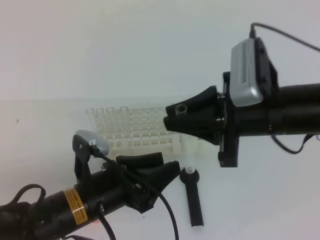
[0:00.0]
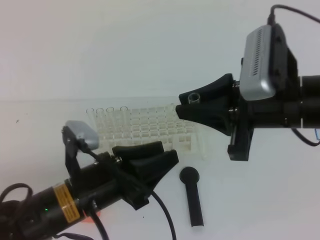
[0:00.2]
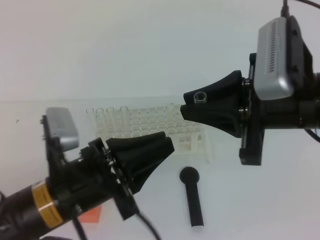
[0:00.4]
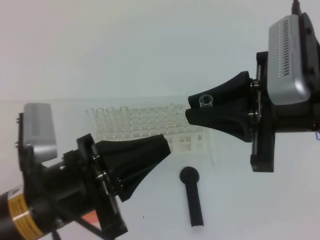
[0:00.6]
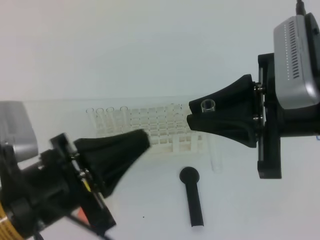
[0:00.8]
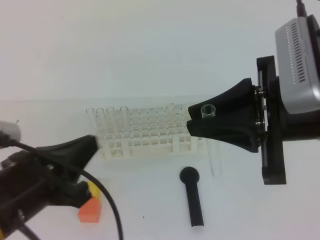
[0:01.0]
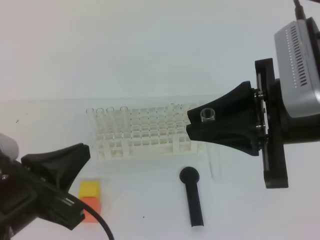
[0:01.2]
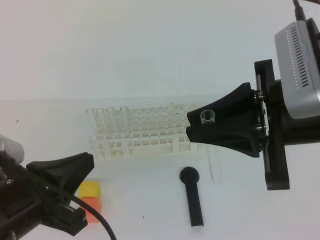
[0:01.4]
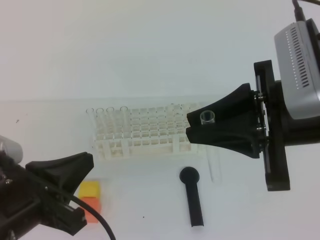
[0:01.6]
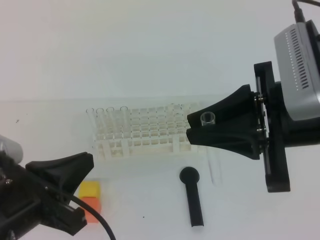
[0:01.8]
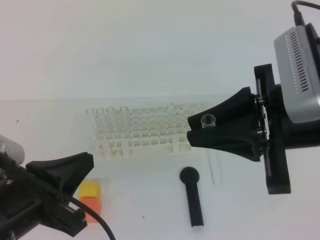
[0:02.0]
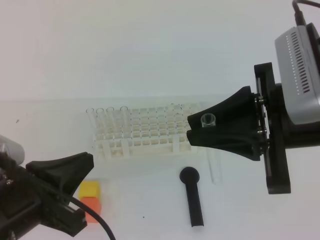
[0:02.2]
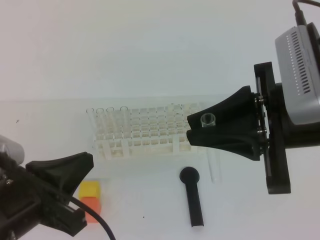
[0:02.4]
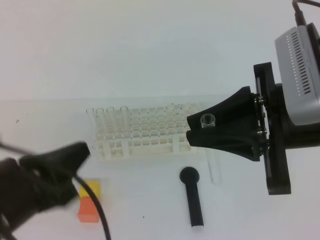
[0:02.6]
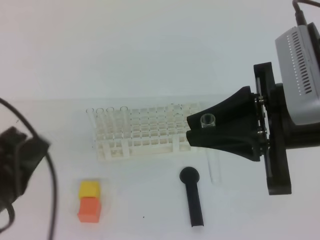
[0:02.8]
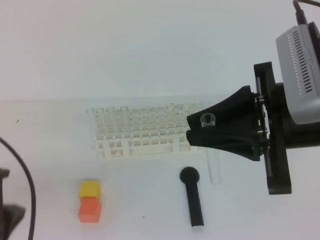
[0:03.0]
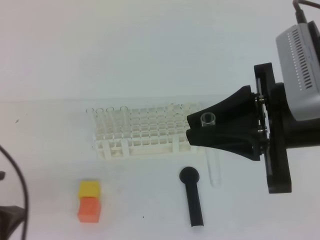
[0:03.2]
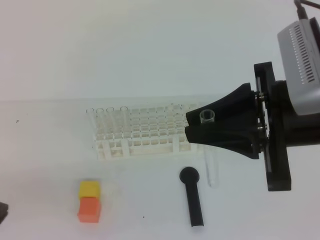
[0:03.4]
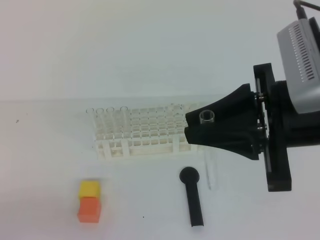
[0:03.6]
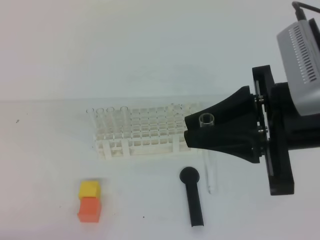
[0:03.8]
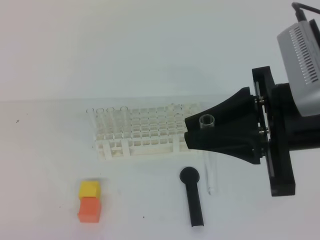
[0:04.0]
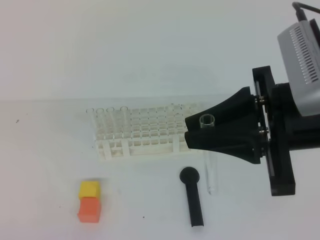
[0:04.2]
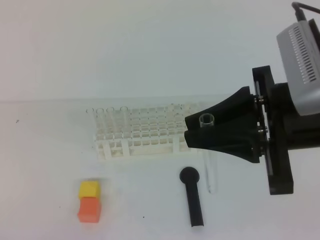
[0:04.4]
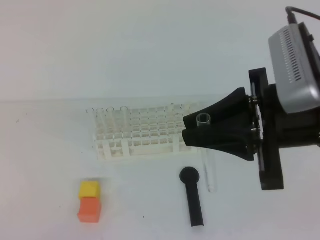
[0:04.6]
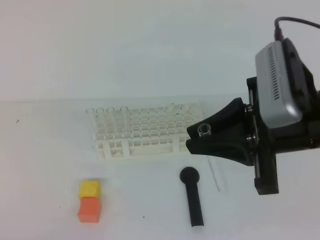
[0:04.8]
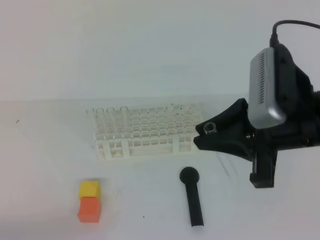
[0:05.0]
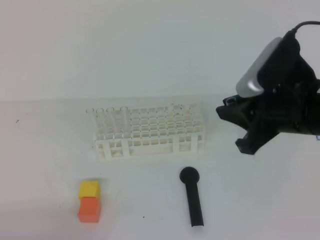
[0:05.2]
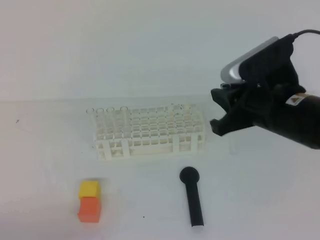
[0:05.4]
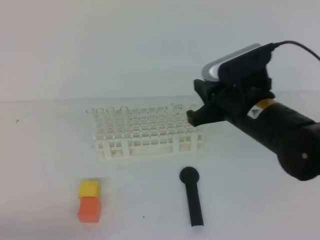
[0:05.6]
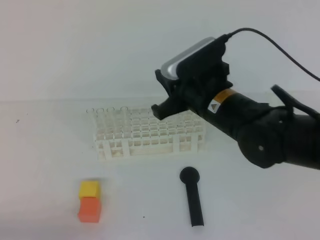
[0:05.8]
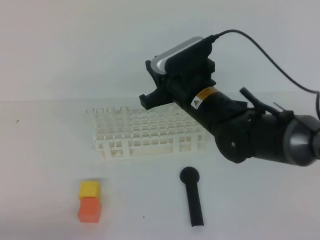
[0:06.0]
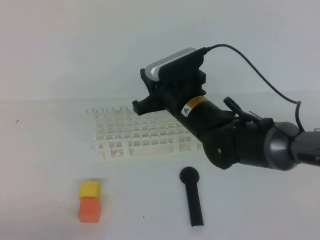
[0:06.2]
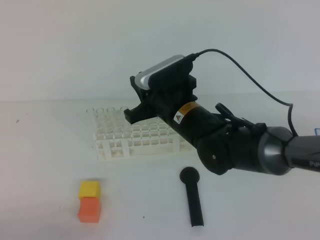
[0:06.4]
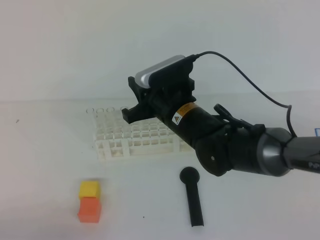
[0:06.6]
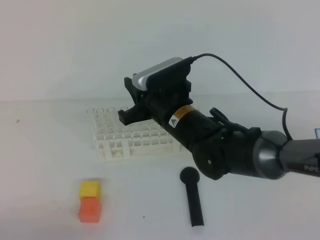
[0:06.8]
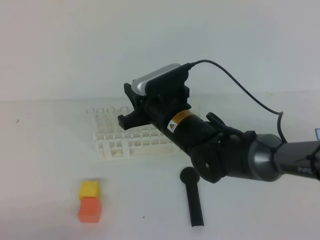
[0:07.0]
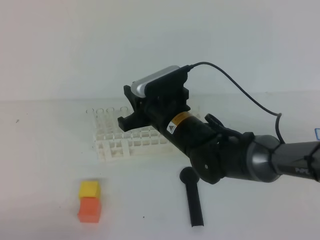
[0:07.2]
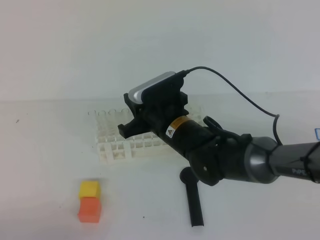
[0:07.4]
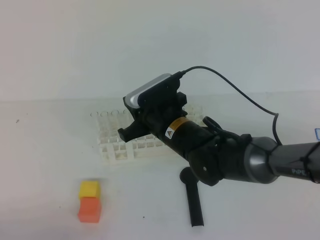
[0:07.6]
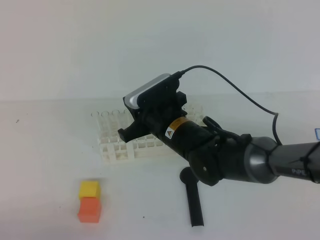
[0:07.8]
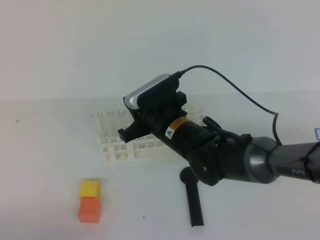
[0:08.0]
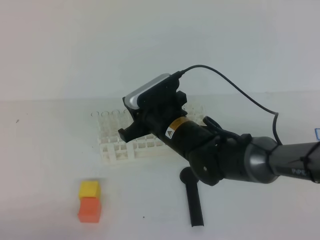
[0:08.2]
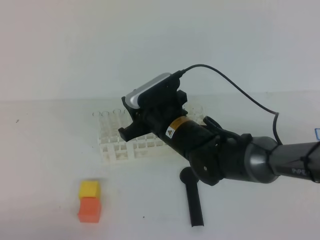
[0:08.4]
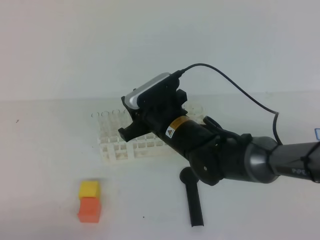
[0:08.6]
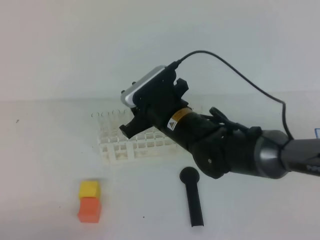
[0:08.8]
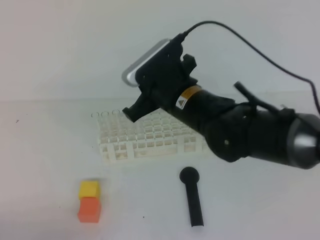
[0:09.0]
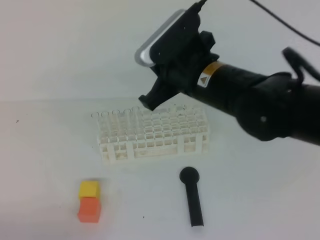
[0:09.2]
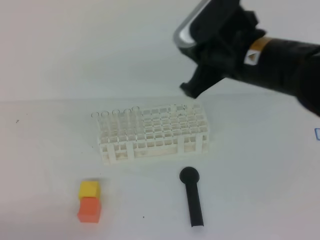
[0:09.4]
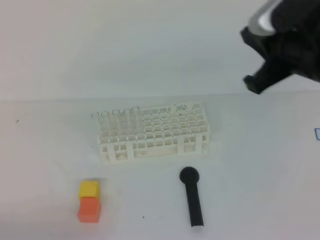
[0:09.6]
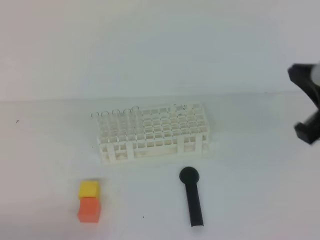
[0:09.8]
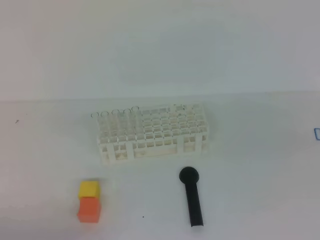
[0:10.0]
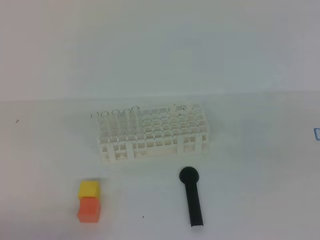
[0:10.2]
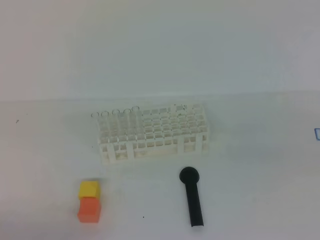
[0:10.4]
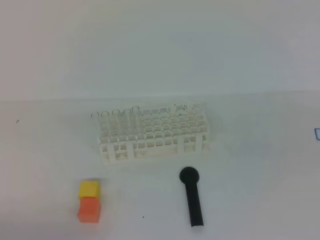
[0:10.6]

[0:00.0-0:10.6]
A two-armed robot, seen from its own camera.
0:00.0 to 0:01.6: The left gripper heads to the left, upward and backward, covering approximately 10 cm, and closes its fingers, while the right gripper is displaced upward and backward by some 10 cm.
0:03.0 to 0:04.6: The left gripper is displaced downward, backward and to the left by some 15 cm.
0:04.6 to 0:06.0: The right gripper is displaced forward, to the left and downward by approximately 20 cm.
0:06.0 to 0:07.6: The right gripper goes roughly 5 cm downward.
0:07.6 to 0:09.0: The right gripper goes some 5 cm upward.
0:09.0 to 0:10.6: The right gripper shifts about 30 cm to the right and backward.

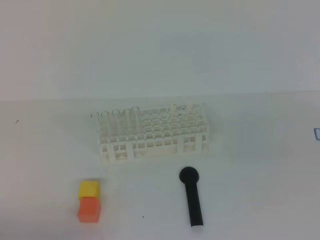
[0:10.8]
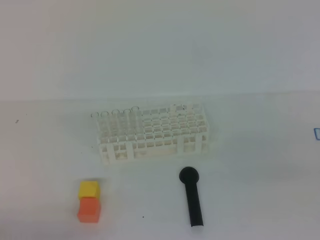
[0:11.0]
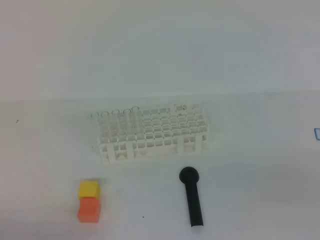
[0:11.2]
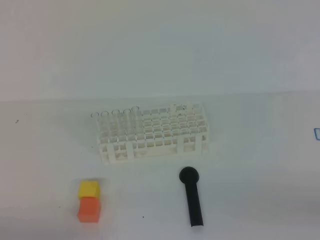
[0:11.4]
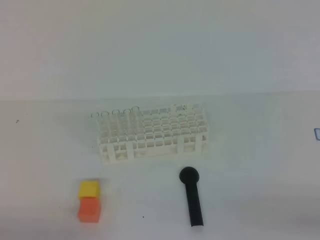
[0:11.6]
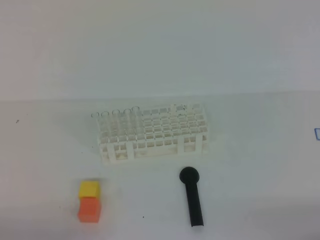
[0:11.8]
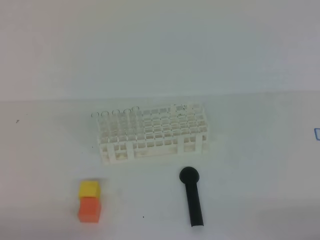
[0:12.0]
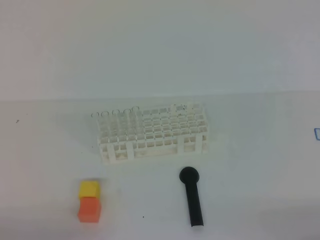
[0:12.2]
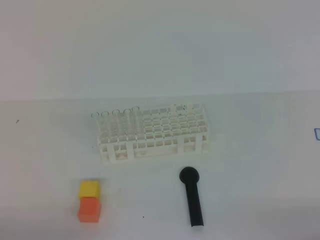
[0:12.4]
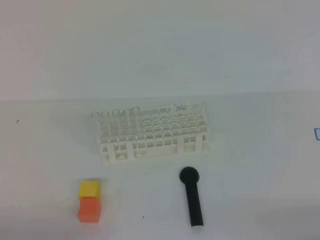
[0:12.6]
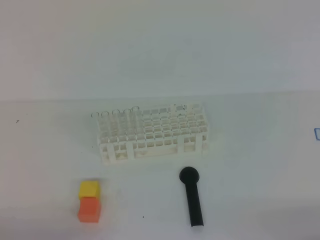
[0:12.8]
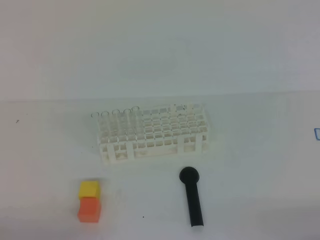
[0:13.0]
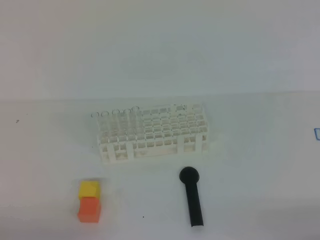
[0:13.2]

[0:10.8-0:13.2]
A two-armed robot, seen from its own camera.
0:12.0 to 0:13.2: Neither gripper changes place.

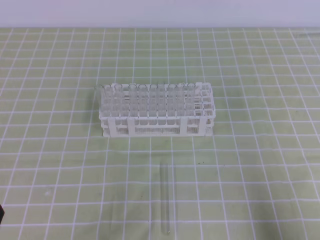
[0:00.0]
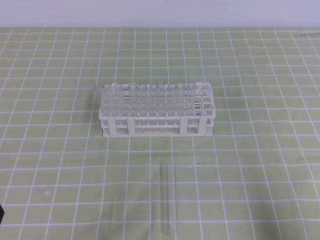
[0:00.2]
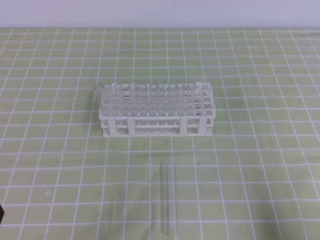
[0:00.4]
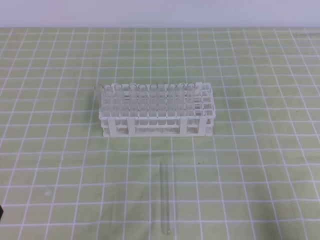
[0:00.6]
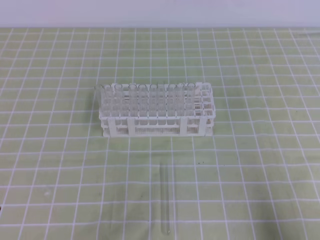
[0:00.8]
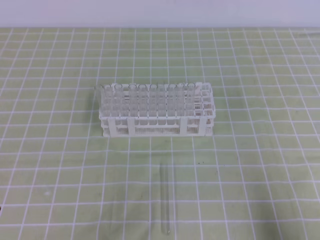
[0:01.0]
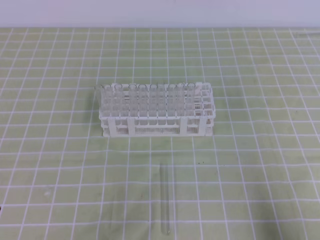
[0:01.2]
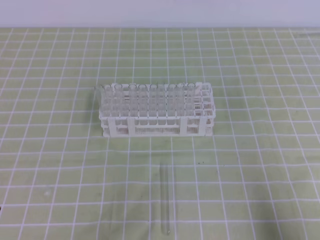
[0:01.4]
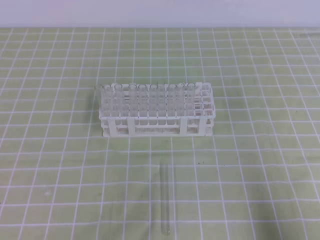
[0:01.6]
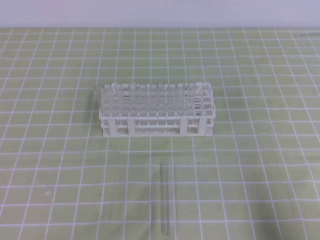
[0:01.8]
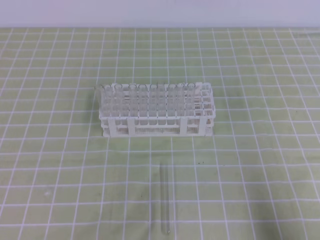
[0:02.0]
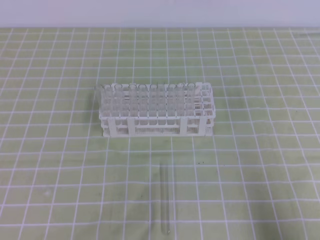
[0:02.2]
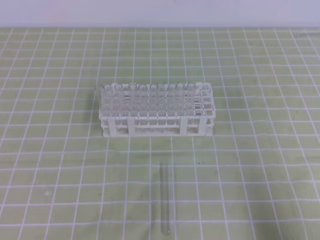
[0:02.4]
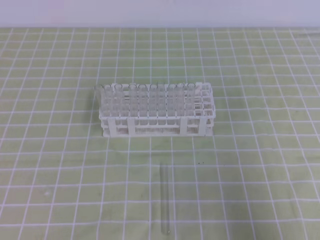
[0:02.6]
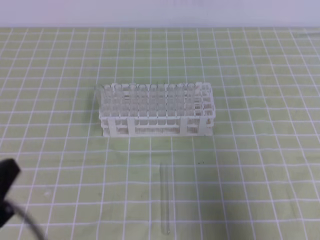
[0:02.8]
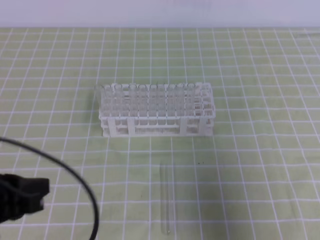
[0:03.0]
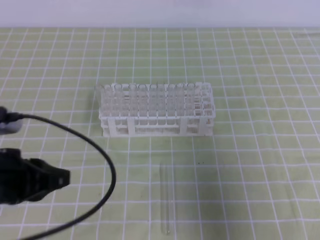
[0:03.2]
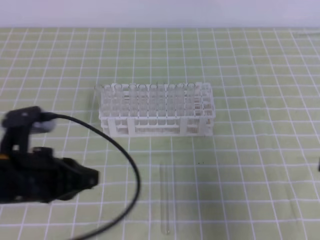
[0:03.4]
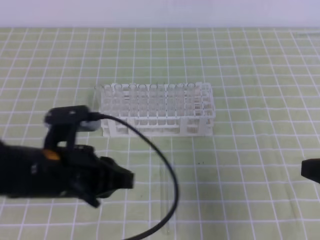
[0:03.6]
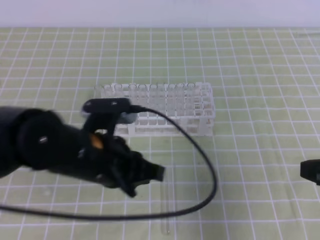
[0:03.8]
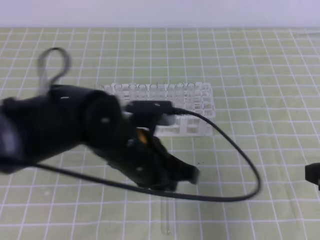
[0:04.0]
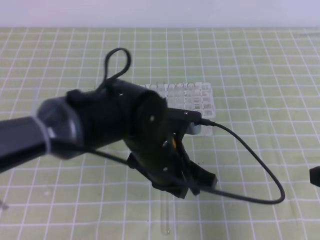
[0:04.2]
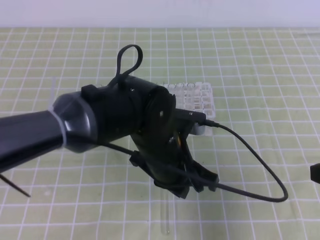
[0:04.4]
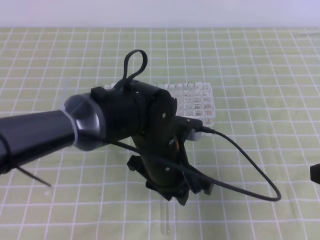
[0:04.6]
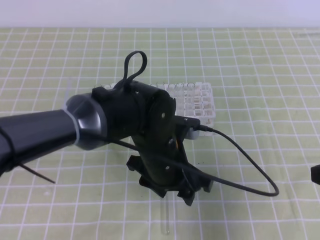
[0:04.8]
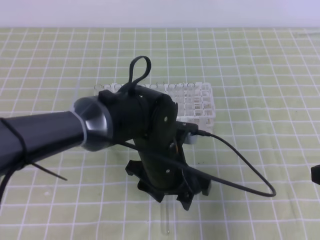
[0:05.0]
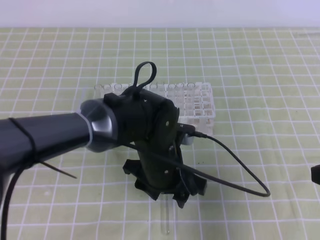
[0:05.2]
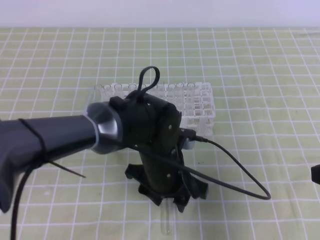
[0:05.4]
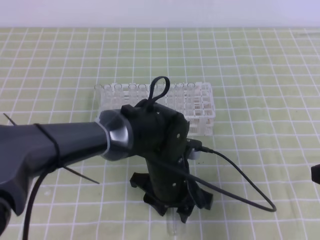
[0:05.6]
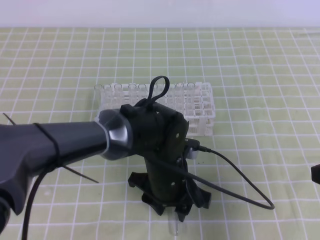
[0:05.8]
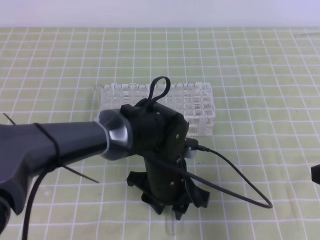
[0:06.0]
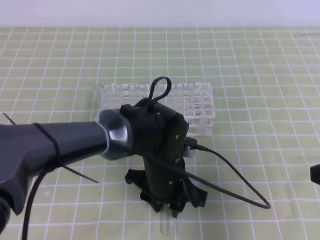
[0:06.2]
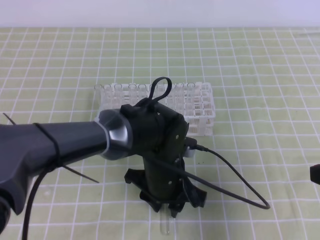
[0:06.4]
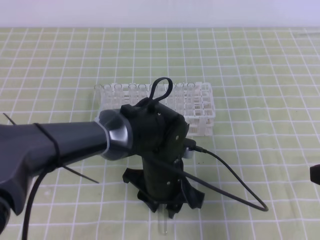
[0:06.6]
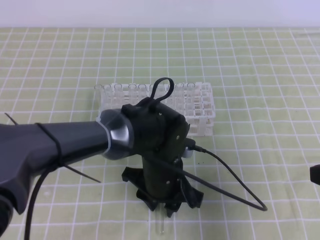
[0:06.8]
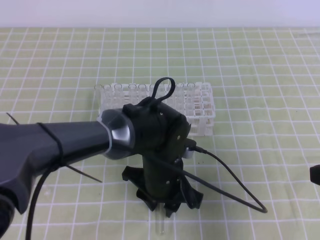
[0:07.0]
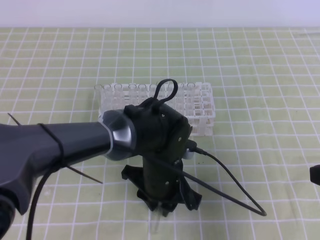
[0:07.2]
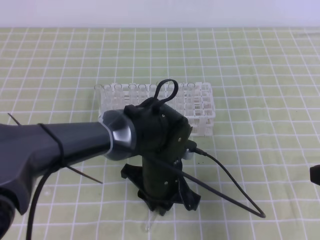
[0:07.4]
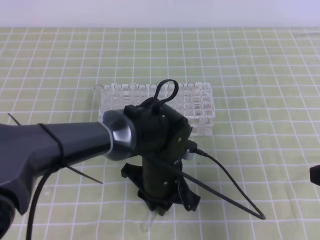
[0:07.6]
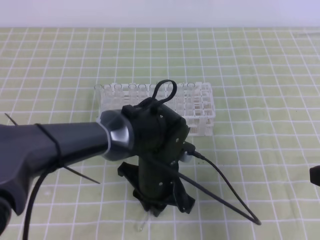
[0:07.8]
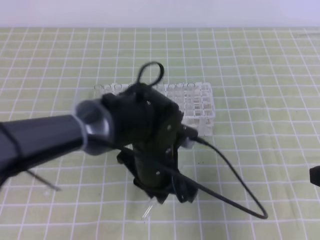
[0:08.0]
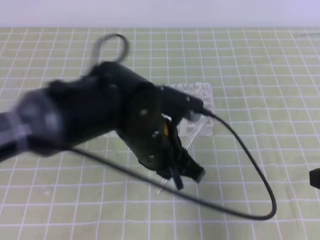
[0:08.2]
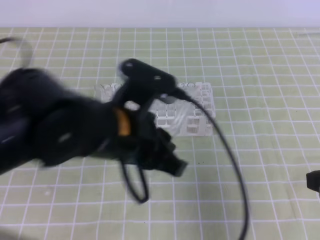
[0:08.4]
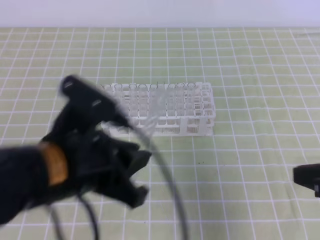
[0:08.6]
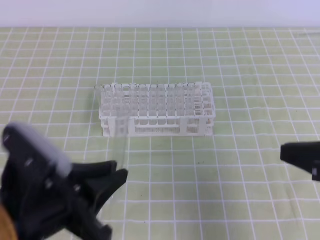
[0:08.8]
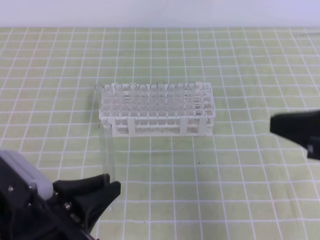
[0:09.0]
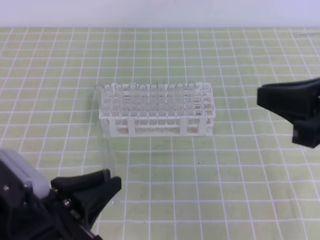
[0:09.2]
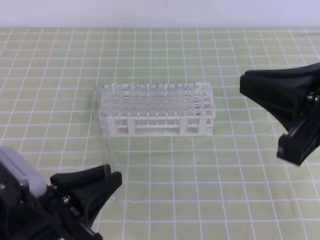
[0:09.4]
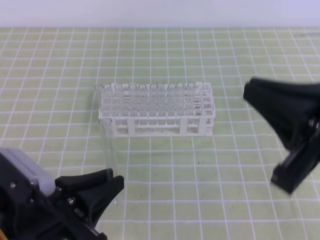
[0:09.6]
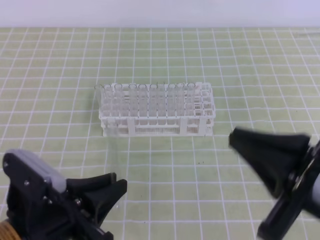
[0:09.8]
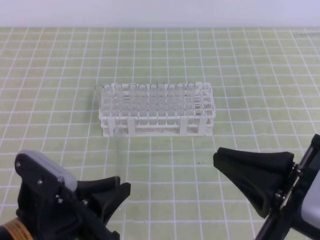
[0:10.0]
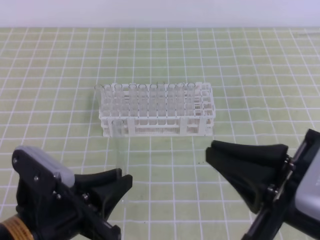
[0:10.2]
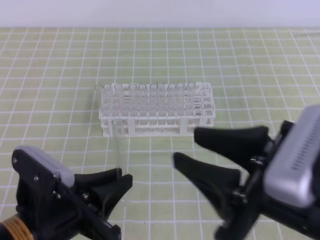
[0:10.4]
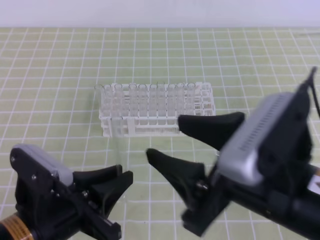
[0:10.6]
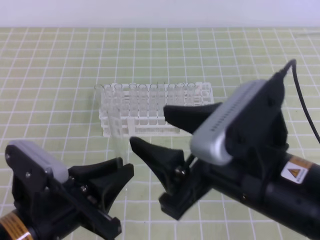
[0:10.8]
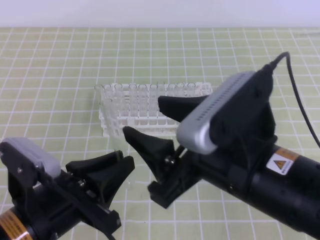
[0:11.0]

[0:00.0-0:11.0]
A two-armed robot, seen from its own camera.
0:01.6 to 0:03.2: The right gripper is displaced upward by approximately 10 cm. Meanwhile the left gripper heads forward, upward and to the right, covering some 15 cm.
0:03.2 to 0:04.8: The right gripper ends up about 5 cm from where it was. Meanwhile the left gripper is displaced to the right by approximately 20 cm, and opens its fingers.
0:04.8 to 0:06.2: There are only small adjustments of the grippers.
0:06.2 to 0:07.8: The left gripper closes.
0:07.8 to 0:09.4: The left gripper travels to the left, backward and upward by some 25 cm, while the right gripper travels upward and to the left by roughly 10 cm.
0:09.4 to 0:11.0: The right gripper is displaced to the left by about 10 cm, and opens.
